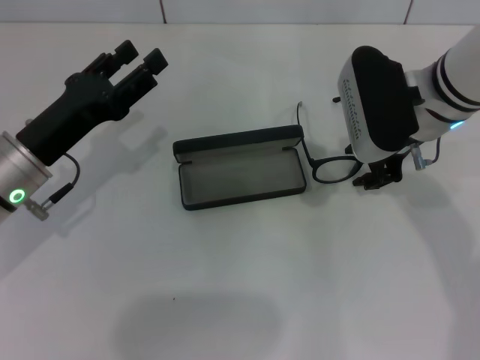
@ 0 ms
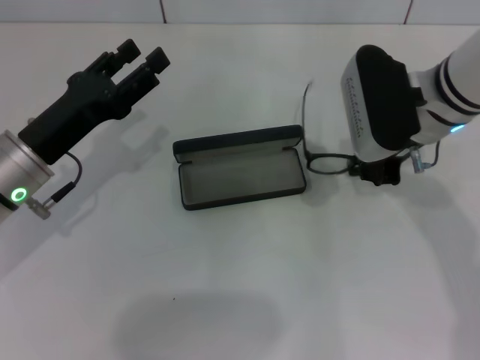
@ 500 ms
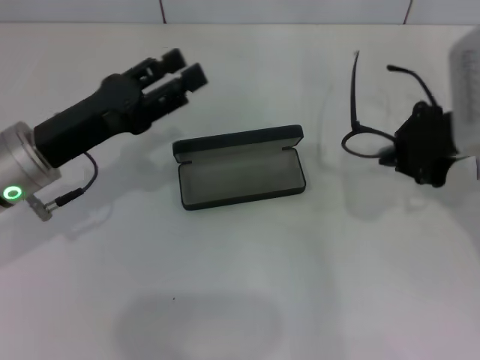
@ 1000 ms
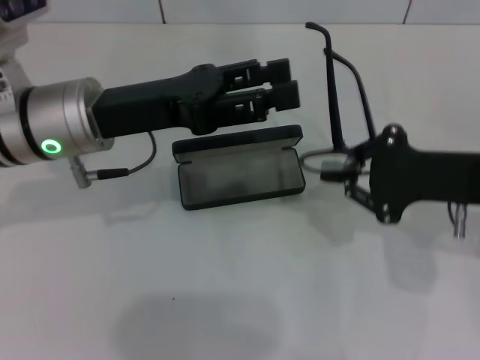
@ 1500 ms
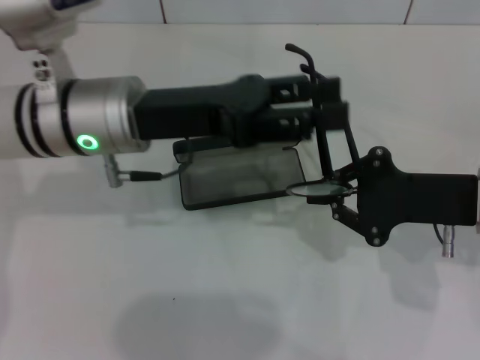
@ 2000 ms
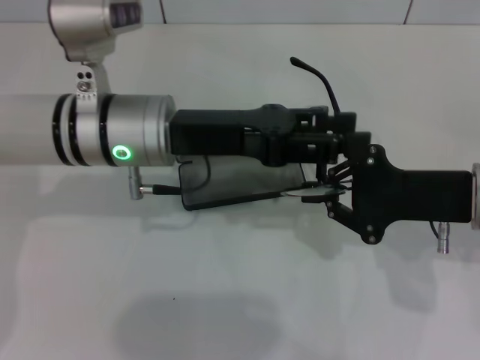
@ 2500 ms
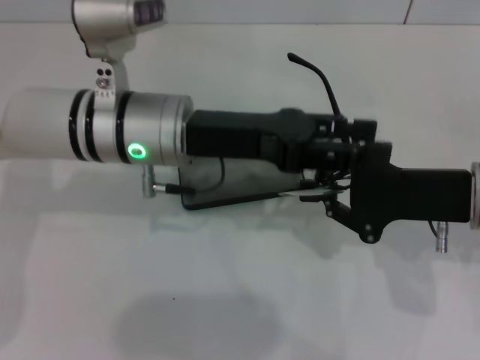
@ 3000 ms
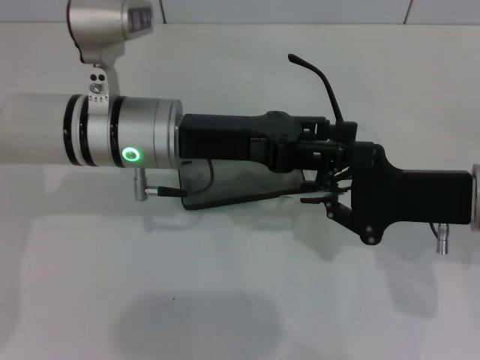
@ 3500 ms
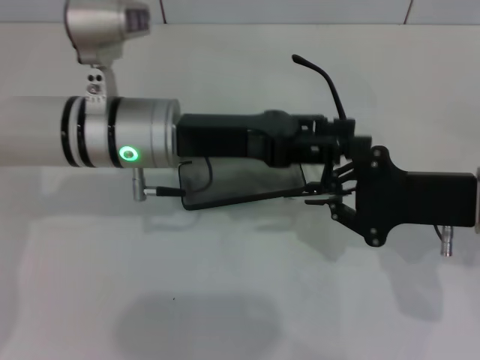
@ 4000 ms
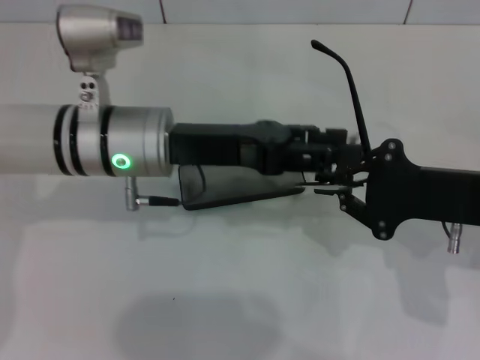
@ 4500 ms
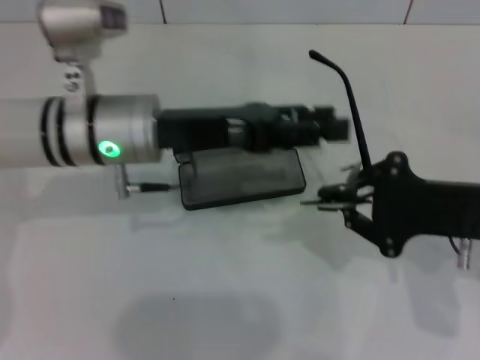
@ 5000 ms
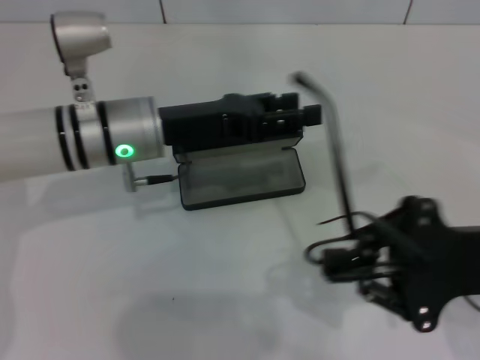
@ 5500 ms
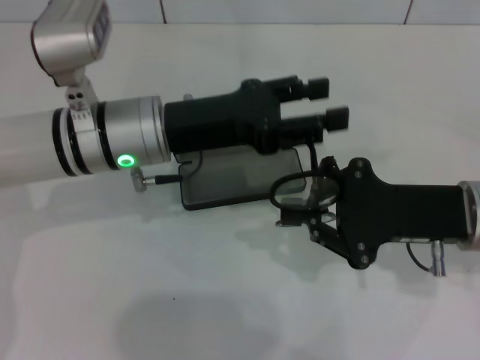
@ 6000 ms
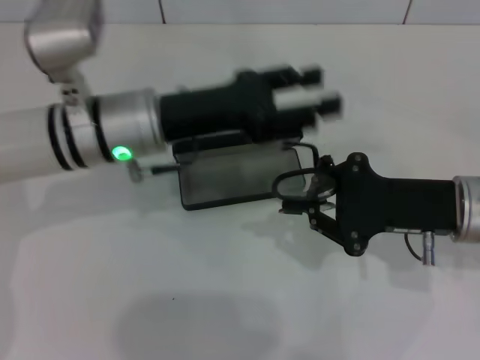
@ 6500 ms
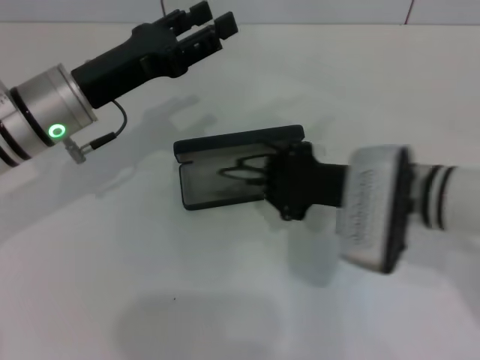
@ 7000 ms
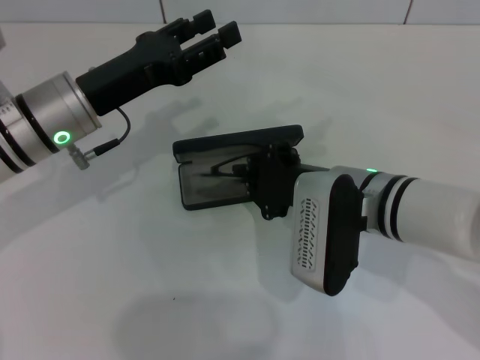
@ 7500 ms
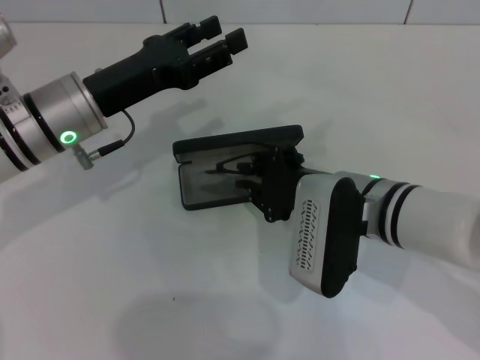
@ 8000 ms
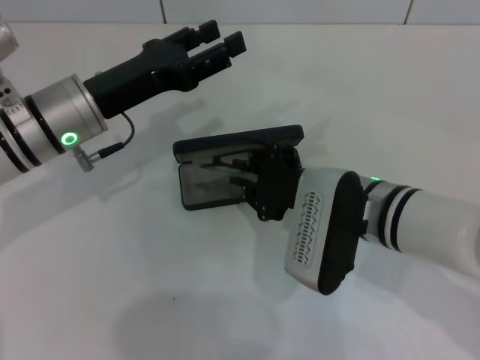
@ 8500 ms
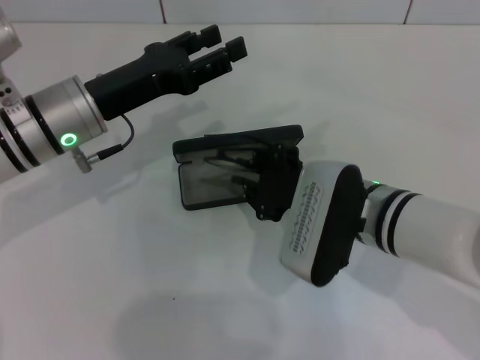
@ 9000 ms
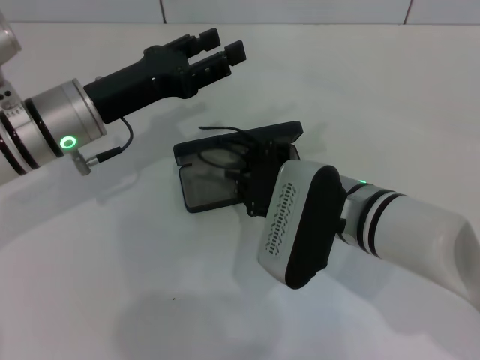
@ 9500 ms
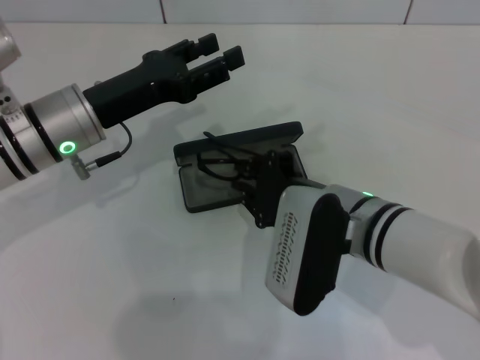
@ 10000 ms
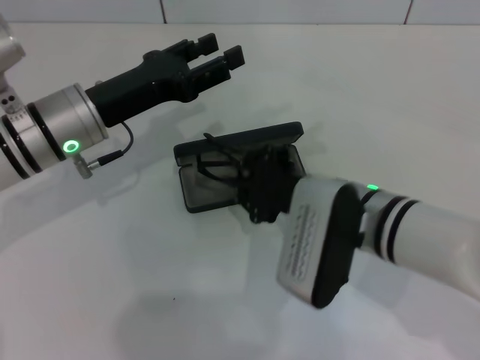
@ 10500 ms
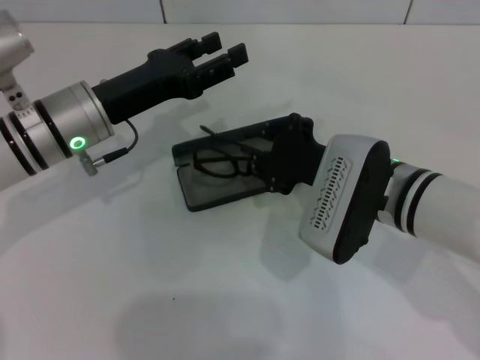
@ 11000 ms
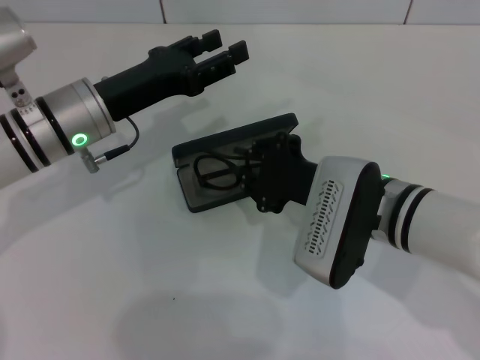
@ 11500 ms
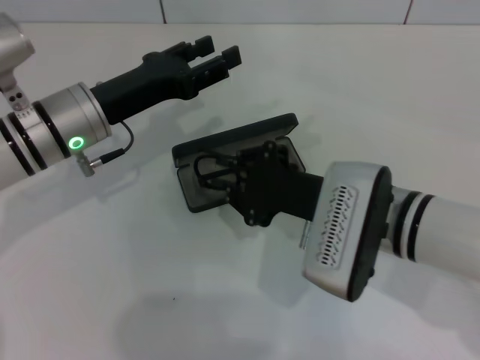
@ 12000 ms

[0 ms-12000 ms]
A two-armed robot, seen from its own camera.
Step, 500 ms to 6000 ms: Fold the frame with your left hand.
Step, 6500 ms to 11000 ms: Put the glasses into the case with your right hand.
0 ms to 2000 ms: The left gripper travels to the right and upward by about 10 cm; the right gripper heads backward and to the right, covering some 15 cm, and closes.
6000 ms to 8000 ms: The left gripper shifts some 5 cm to the left, while the right gripper heads to the left, covering about 10 cm.
8000 ms to 12000 ms: The grippers move only a little.

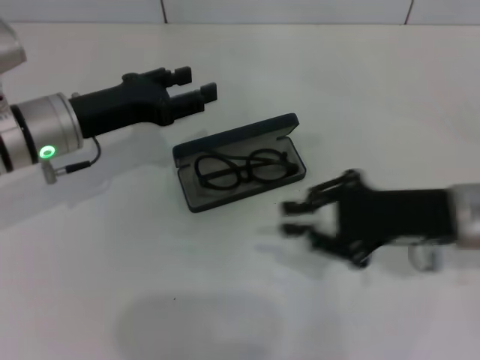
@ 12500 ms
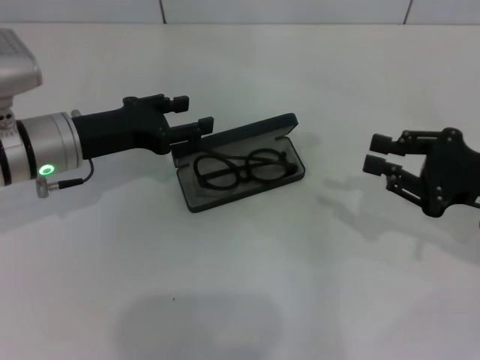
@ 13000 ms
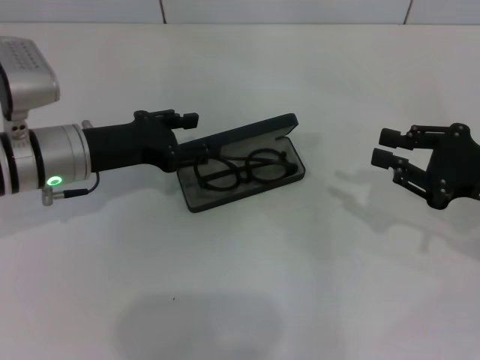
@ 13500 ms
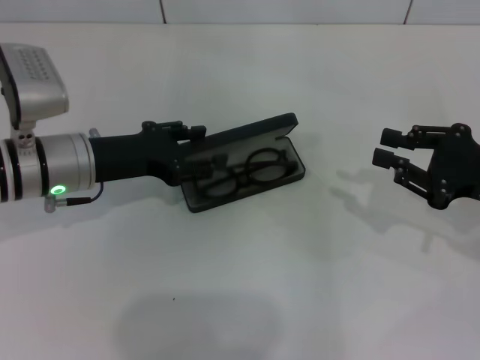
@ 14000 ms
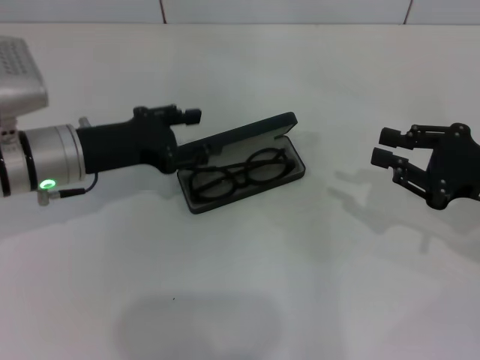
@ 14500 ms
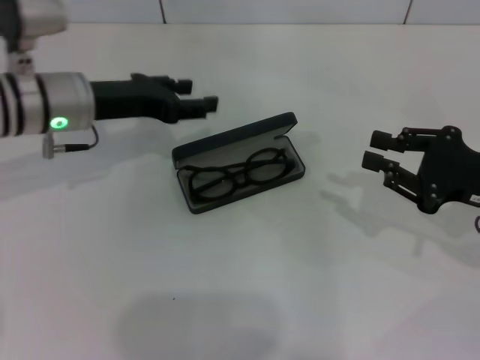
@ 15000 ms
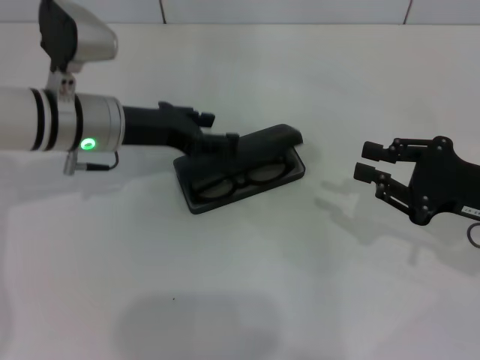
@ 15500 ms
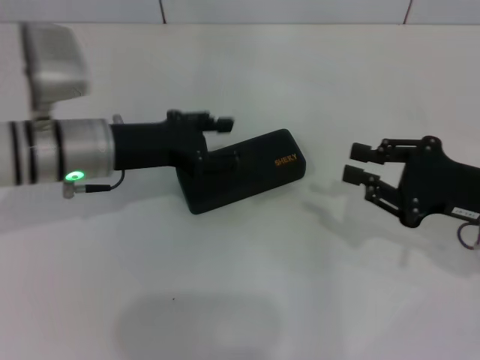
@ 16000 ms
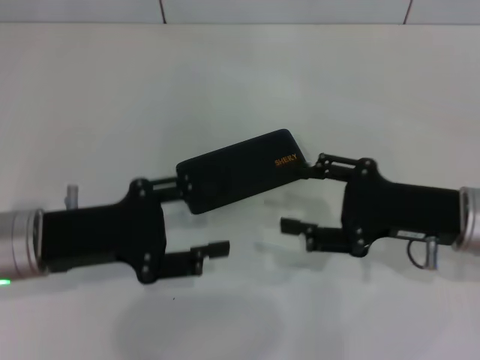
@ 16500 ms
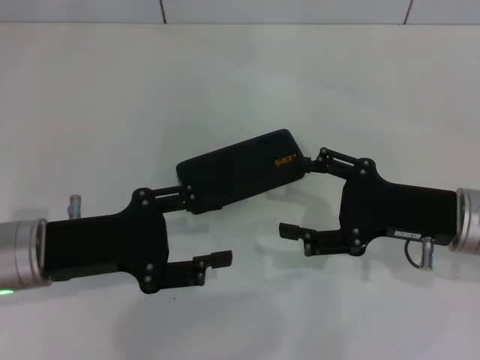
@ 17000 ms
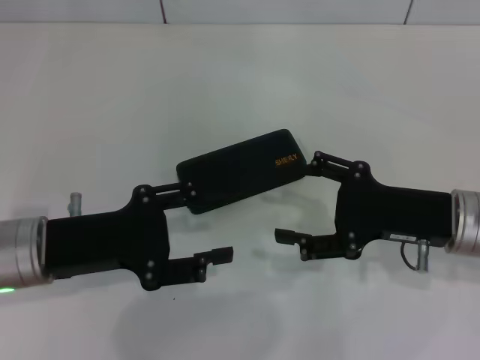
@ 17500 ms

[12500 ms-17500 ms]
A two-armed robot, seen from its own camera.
Step, 12500 ms to 15500 ms: Close the glasses case with your left hand.
12500 ms to 15000 ms: The right gripper heads to the right, covering some 10 cm.
15000 ms to 17500 ms: The left gripper heads backward, covering approximately 15 cm, while the right gripper goes about 5 cm to the left, and opens its fingers.

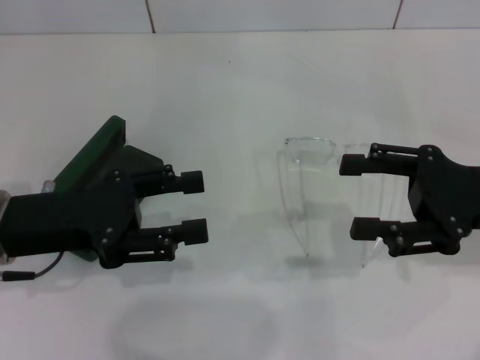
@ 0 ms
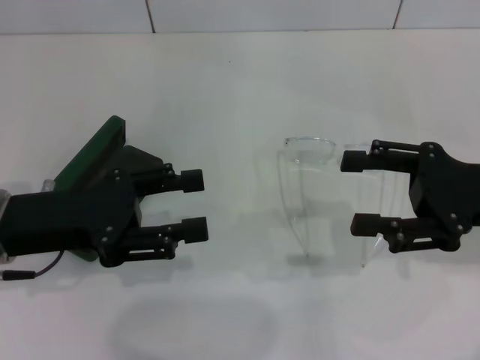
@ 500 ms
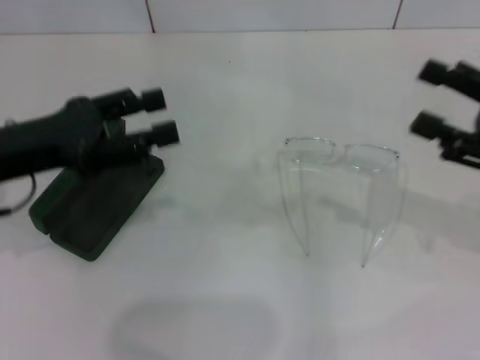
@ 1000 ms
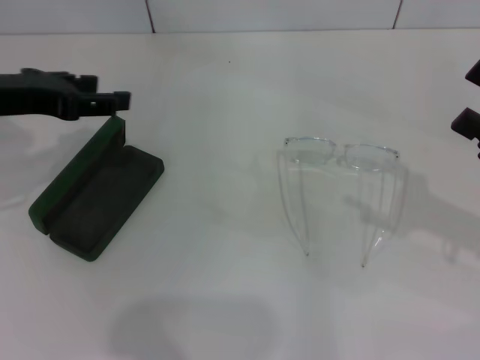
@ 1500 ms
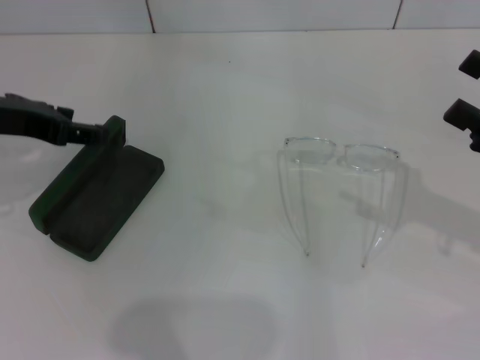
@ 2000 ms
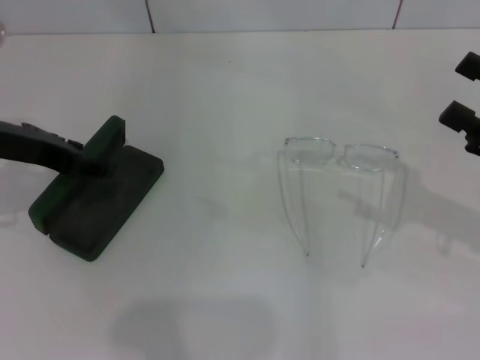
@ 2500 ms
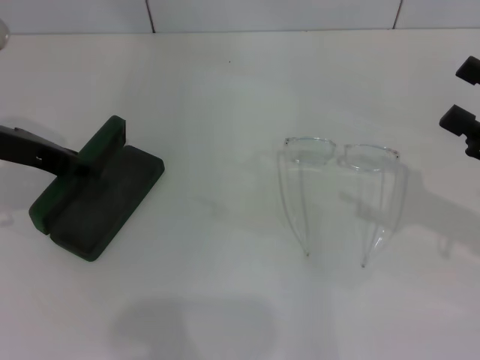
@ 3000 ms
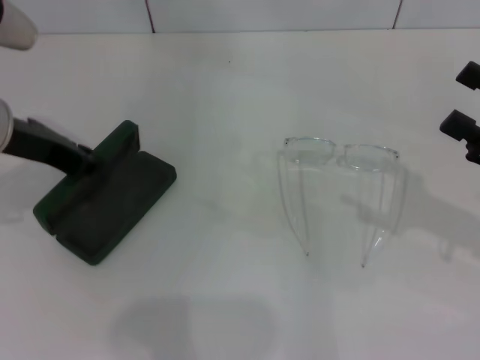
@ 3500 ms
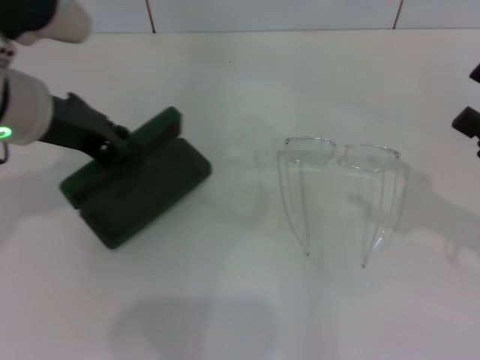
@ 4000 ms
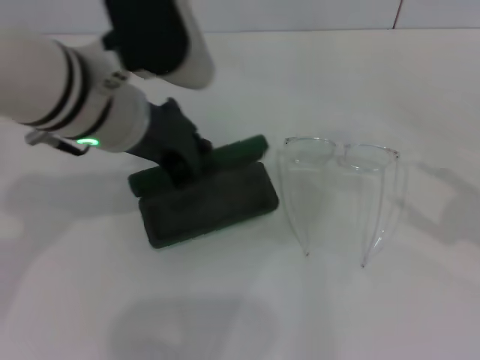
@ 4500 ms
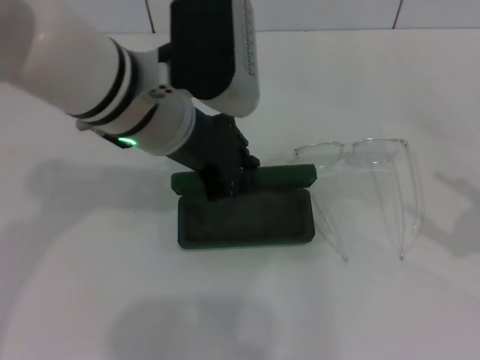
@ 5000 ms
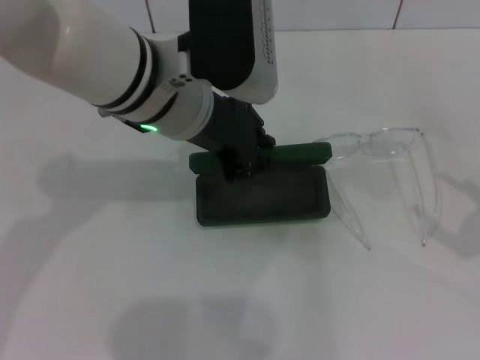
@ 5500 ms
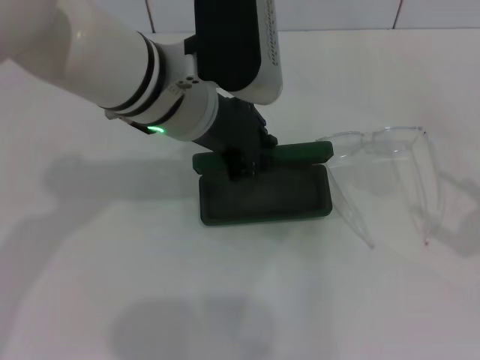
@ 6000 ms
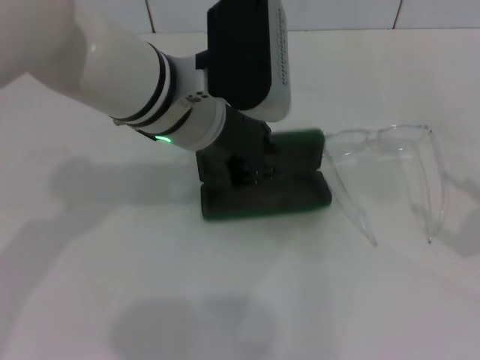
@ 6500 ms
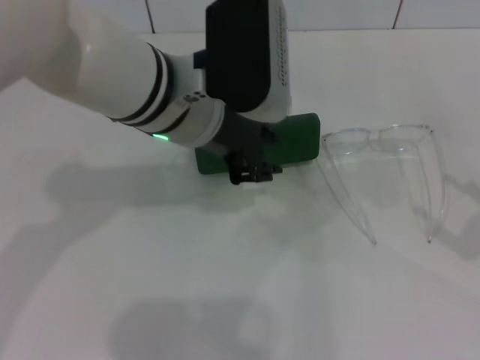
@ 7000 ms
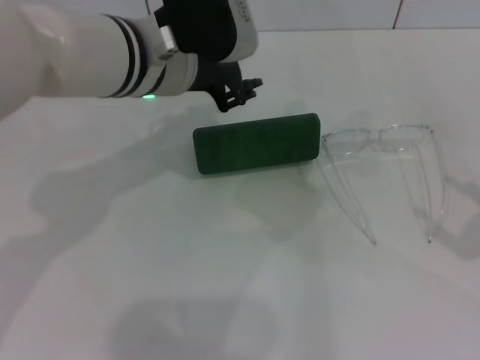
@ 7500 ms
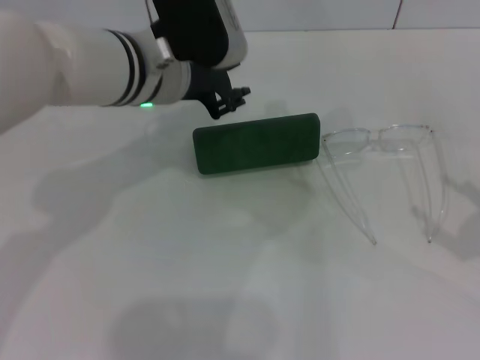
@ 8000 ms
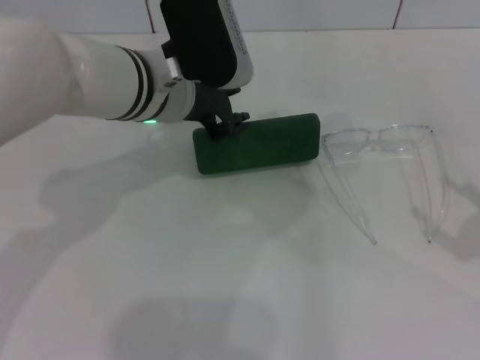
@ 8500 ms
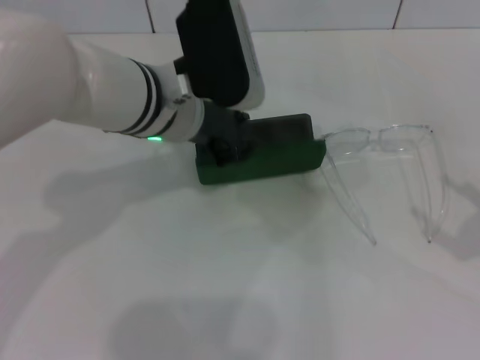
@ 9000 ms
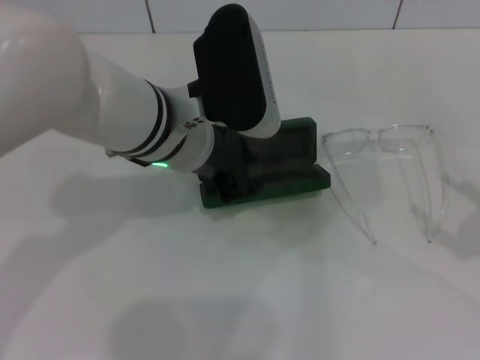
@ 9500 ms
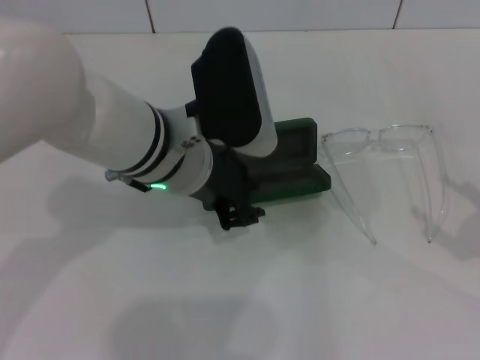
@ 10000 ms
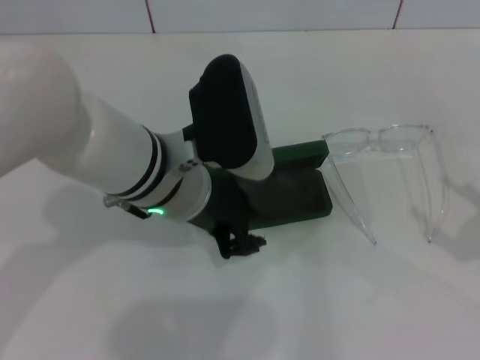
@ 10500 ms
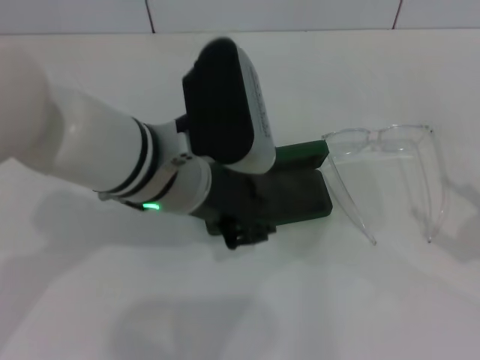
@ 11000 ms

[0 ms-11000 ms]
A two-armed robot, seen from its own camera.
Step, 0 ms to 3500 ms: Grab the glasses case with your left hand.
Step, 4000 ms to 10500 ms: Place the glasses case in the center of the table with your left hand.
0 ms to 2000 ms: The right gripper moves to the right, roughly 5 cm. The left gripper travels forward and upward by some 10 cm.
2000 ms to 3500 ms: The left gripper closes up.
3500 ms to 5500 ms: The left gripper travels to the right by about 15 cm. Meanwhile the right gripper is displaced backward and to the right by some 10 cm.
7500 ms to 9000 ms: The grippers make only small movements.
9000 ms to 11000 ms: The left gripper travels backward by approximately 5 cm.
